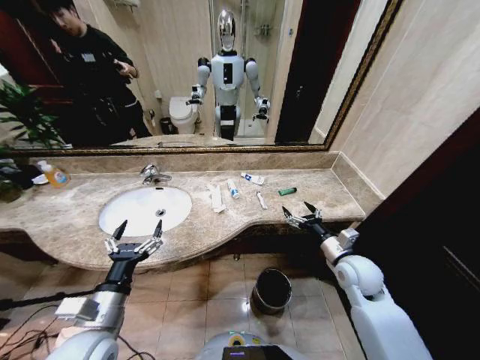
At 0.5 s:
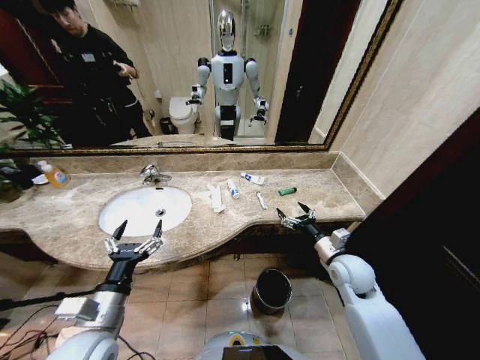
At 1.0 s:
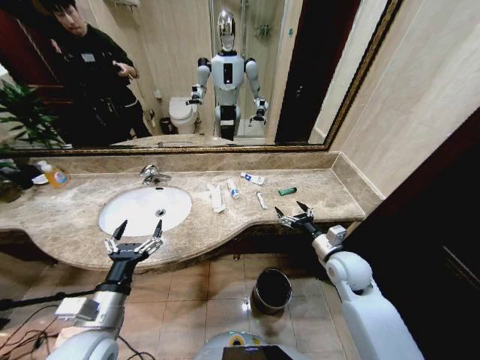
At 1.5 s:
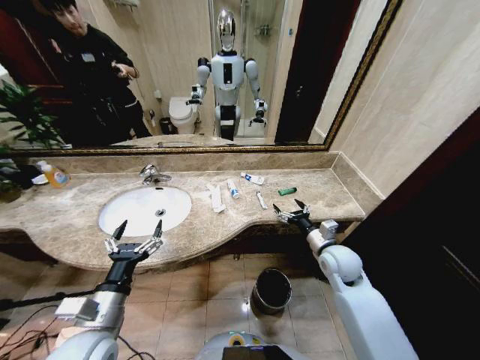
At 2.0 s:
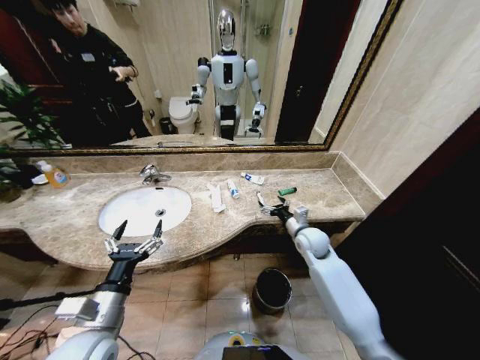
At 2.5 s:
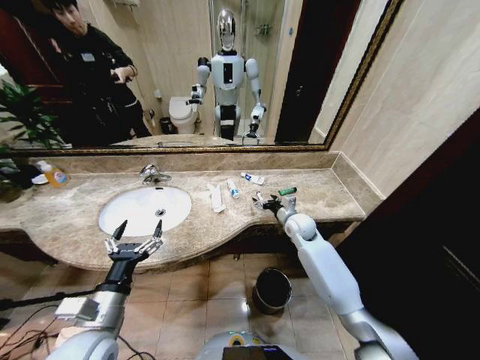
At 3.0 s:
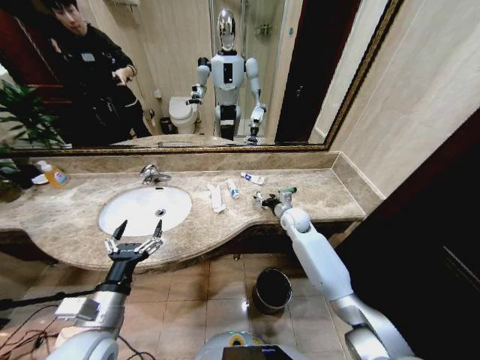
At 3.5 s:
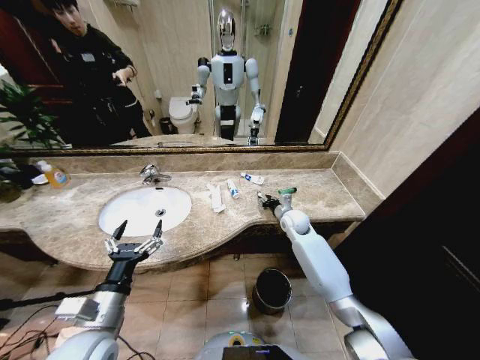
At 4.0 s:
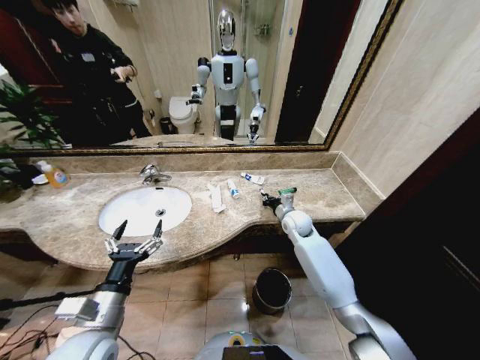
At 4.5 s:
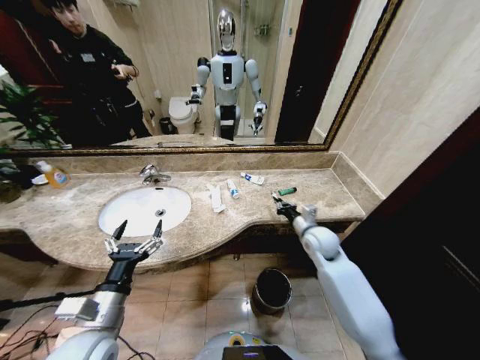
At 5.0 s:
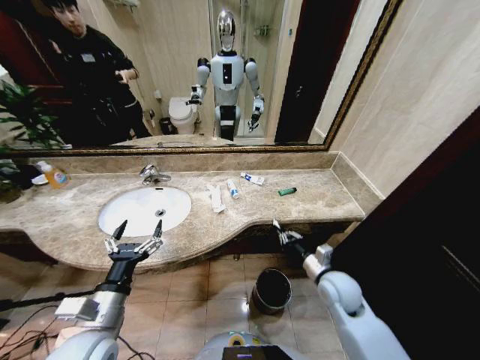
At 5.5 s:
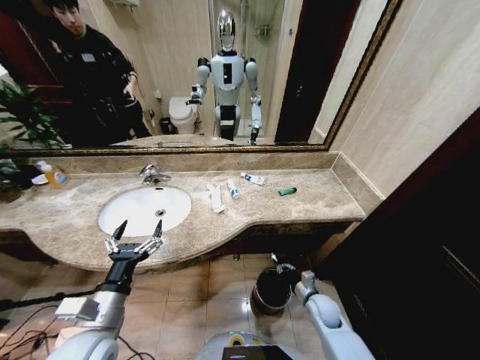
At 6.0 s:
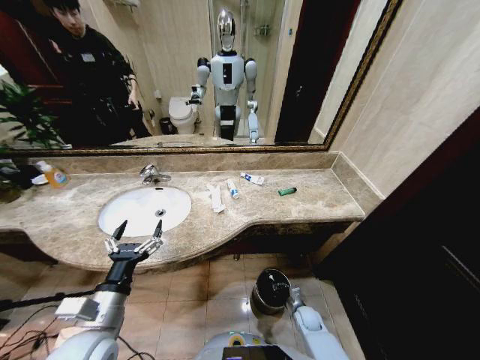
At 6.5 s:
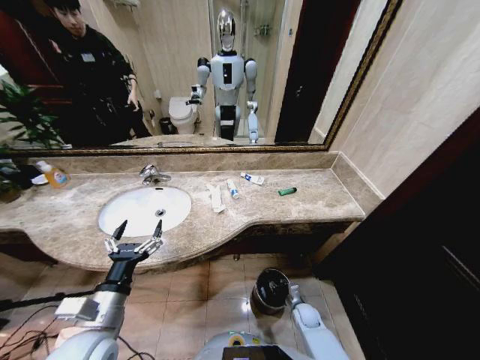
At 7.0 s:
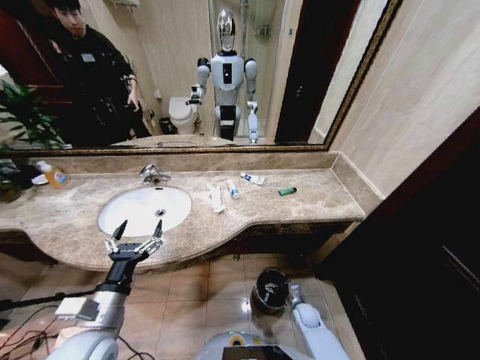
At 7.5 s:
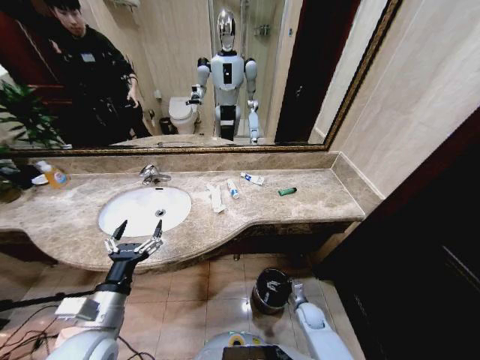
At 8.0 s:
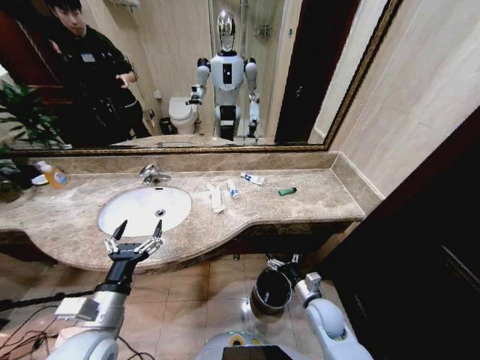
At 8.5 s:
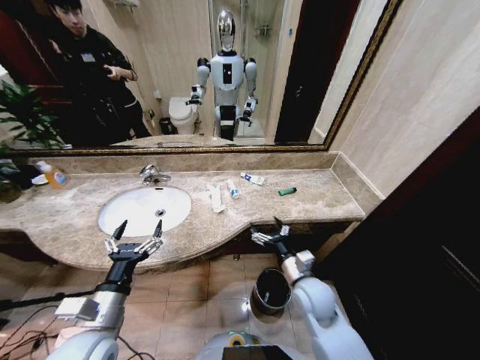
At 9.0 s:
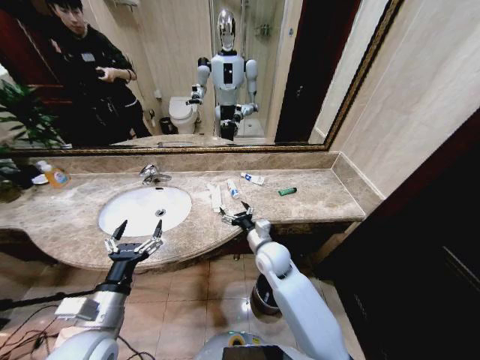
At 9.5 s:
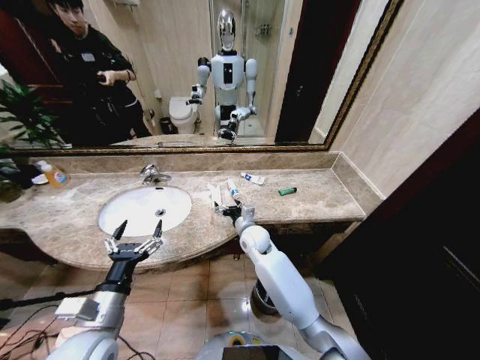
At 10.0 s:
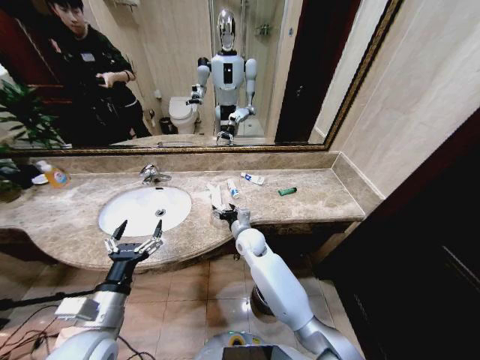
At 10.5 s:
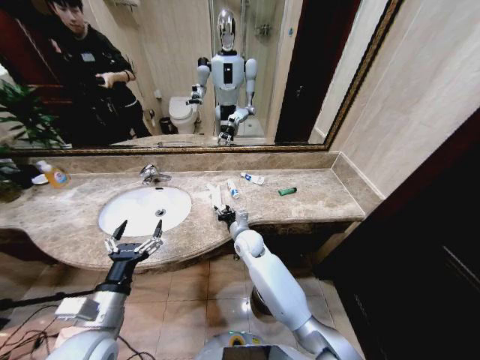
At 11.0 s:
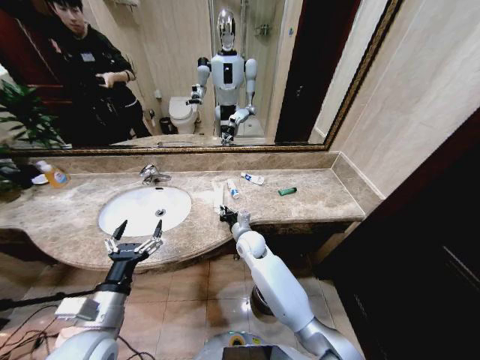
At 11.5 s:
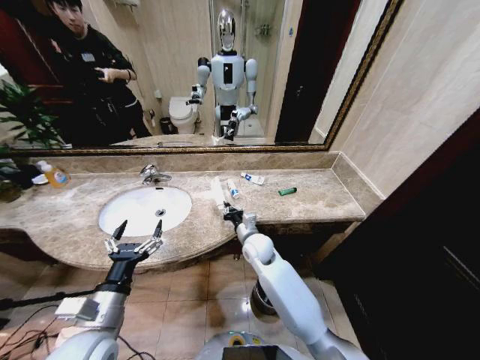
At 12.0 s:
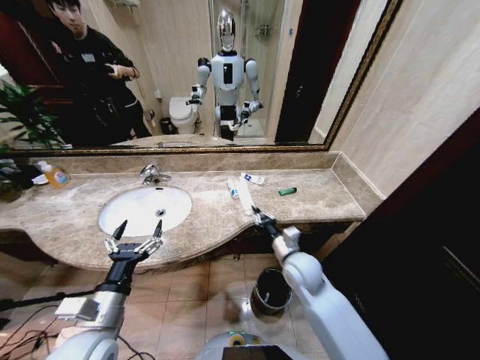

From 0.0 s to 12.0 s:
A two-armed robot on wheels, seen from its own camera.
Task of the whole recording: Pick up the trash from the sink and place it in the trash bin.
From 2.0 s to 4.0 s: The right gripper is displaced forward by roughly 5 cm, and closes up.
From 4.0 s to 6.0 s: The right gripper is displaced downward and backward by approximately 40 cm.
From 6.0 s to 8.0 s: The right gripper heads upward, covering roughly 20 cm, and opens.
From 8.0 s to 10.0 s: The right gripper travels to the left, forward and upward by some 30 cm.
From 10.0 s to 12.0 s: The right gripper moves to the right and backward, about 15 cm, and closes its fingers.

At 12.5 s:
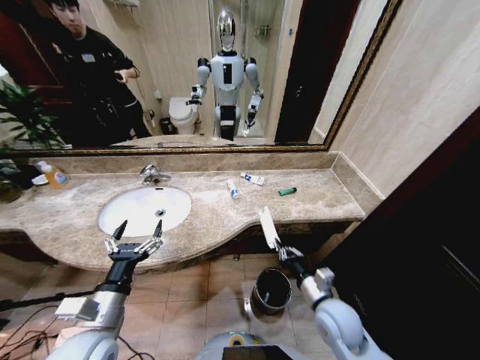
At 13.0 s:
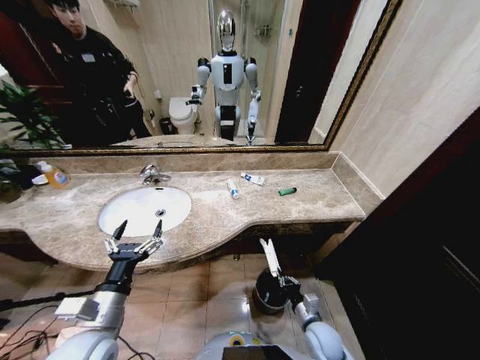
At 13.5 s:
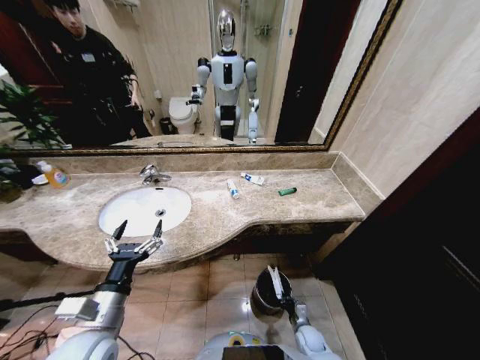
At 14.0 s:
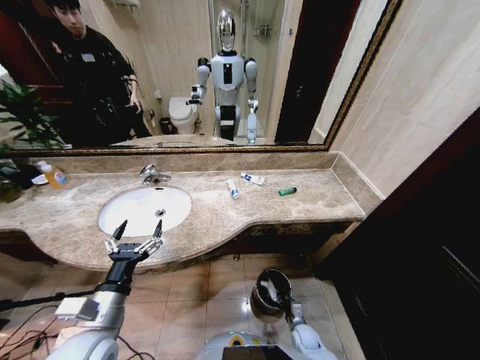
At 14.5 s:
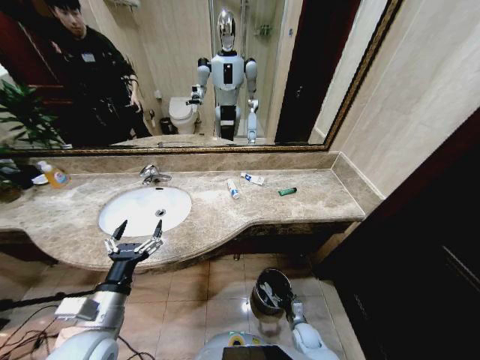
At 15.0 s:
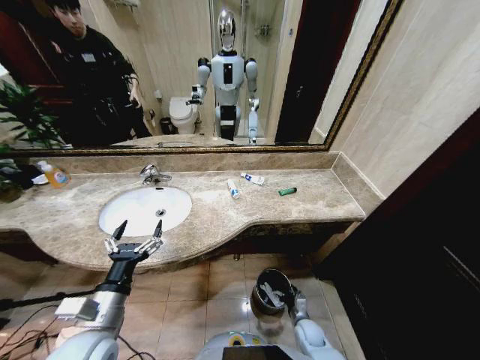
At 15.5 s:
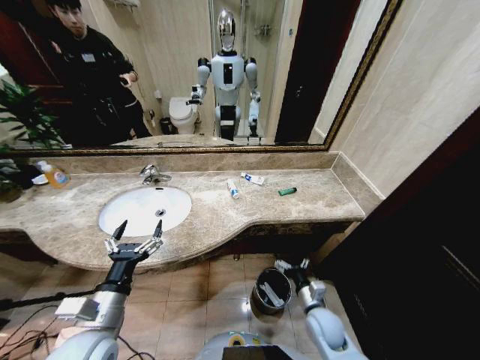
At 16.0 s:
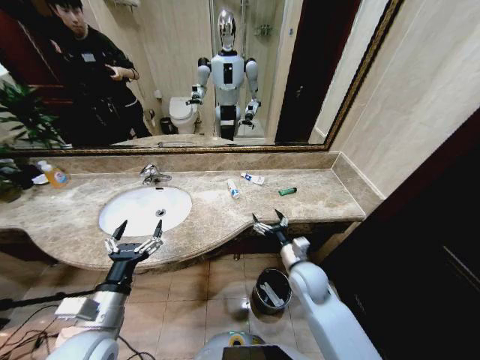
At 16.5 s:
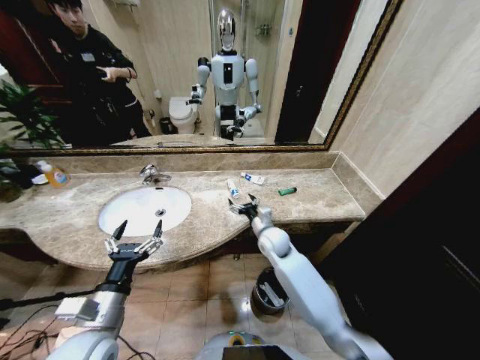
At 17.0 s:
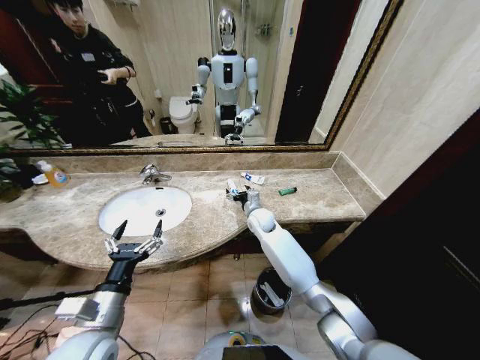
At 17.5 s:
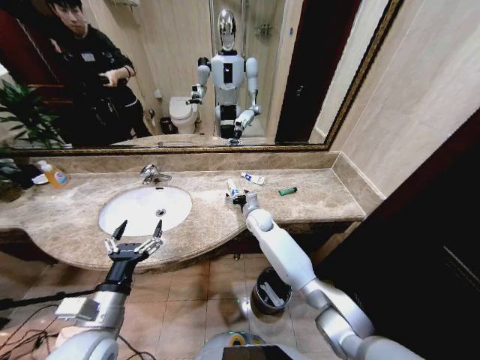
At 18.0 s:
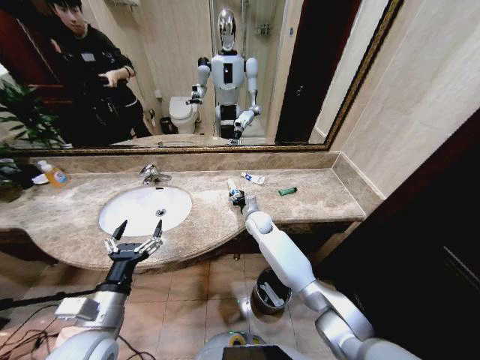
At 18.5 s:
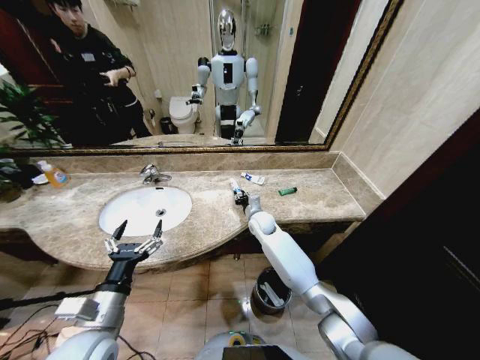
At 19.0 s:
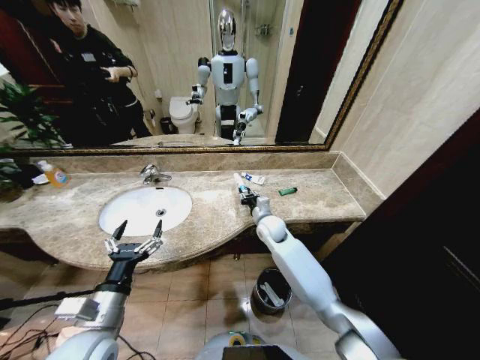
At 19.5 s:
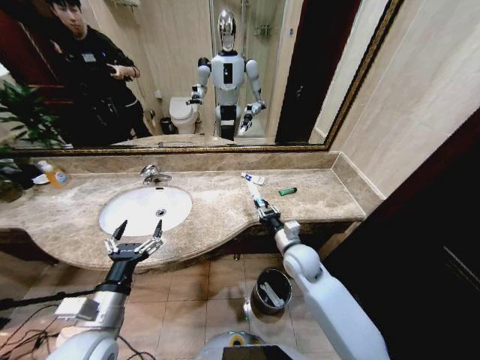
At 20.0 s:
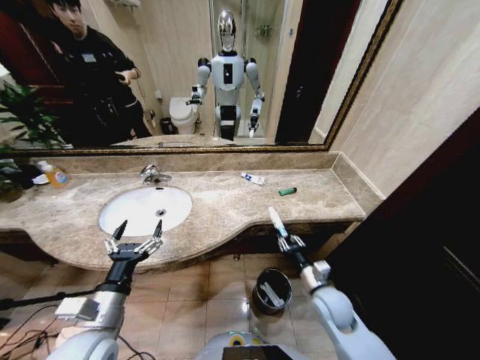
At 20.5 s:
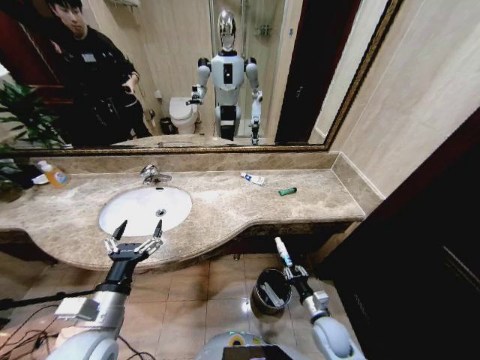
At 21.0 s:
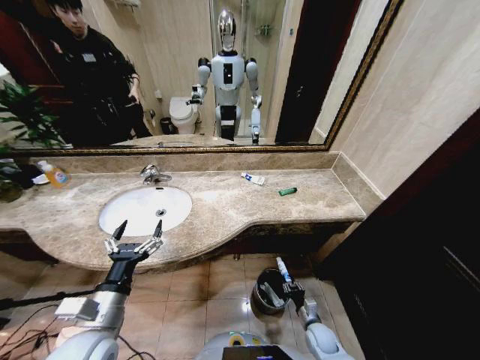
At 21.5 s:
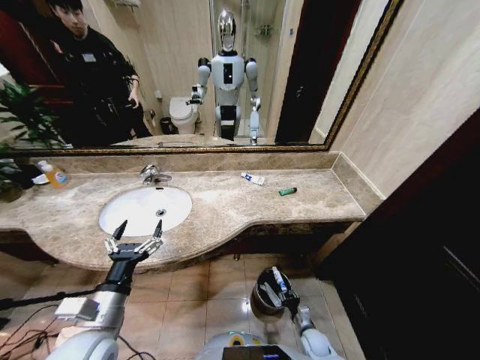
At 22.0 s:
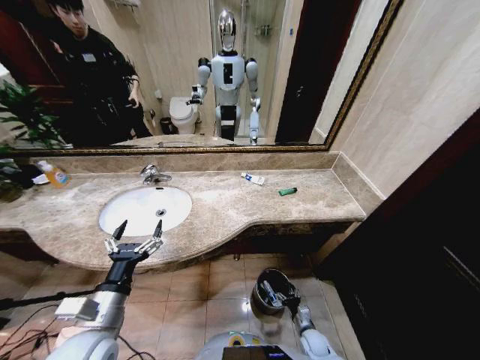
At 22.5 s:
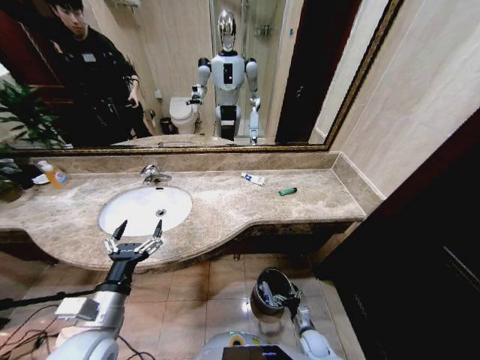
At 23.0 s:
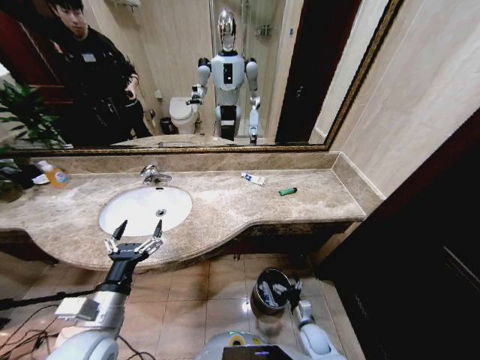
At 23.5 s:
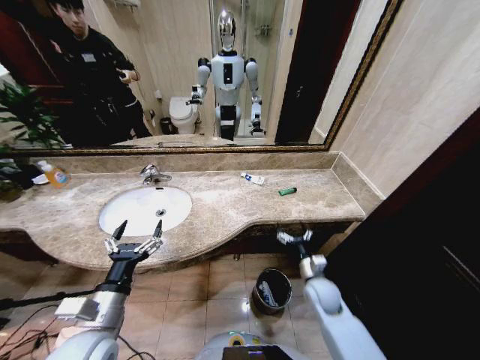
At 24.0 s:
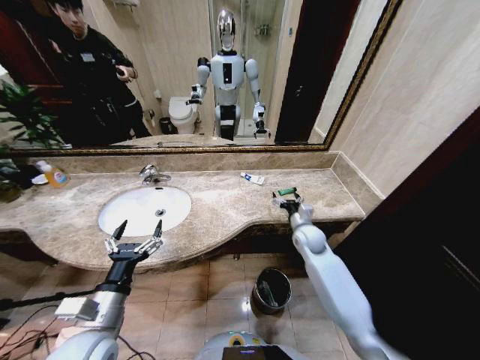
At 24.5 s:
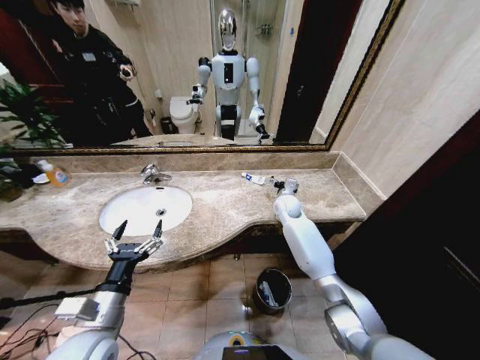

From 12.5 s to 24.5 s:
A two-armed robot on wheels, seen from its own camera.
Task of the whole recording: Pick up the trash from the sink and place it in the trash bin.
From 12.5 s to 14.5 s: The right gripper heads downward, covering some 30 cm, and opens up.
From 14.5 s to 16.5 s: The right gripper travels upward, forward and to the left by roughly 40 cm.
From 16.5 s to 18.5 s: The right gripper is displaced forward by some 10 cm, and closes.
From 18.5 s to 20.5 s: The right gripper heads backward, to the right and downward, covering approximately 40 cm.
From 20.5 s to 22.5 s: The right gripper is displaced downward by some 15 cm, and opens its fingers.
From 22.5 s to 24.5 s: The right gripper is displaced forward and upward by roughly 50 cm.

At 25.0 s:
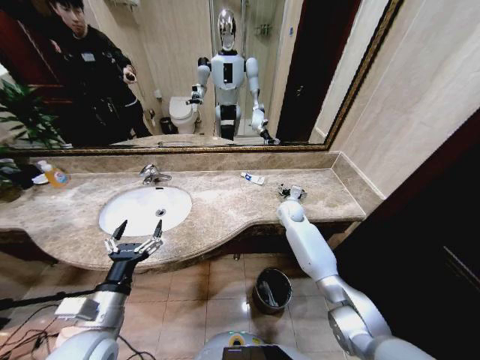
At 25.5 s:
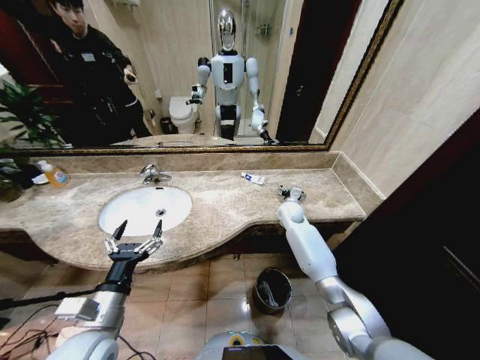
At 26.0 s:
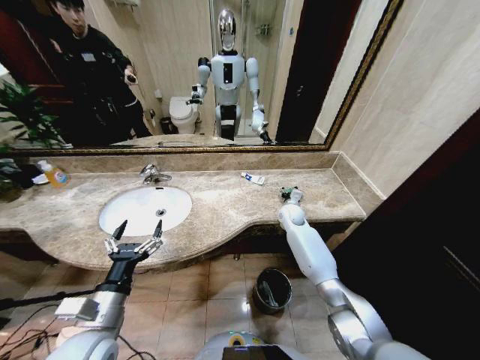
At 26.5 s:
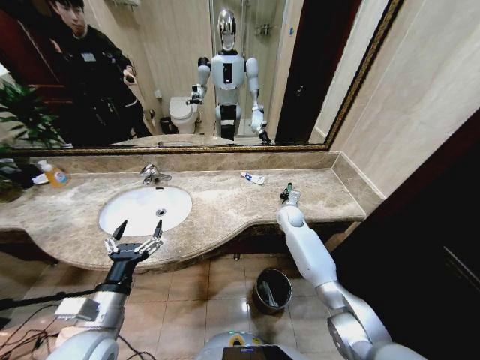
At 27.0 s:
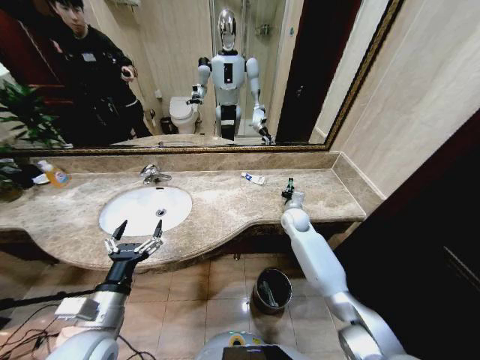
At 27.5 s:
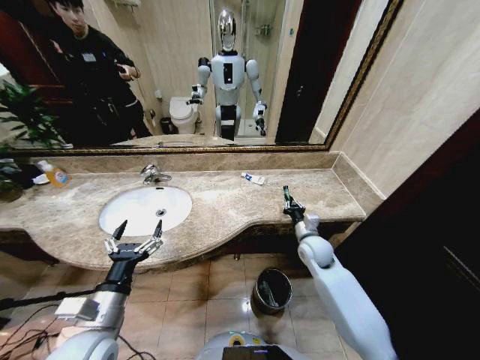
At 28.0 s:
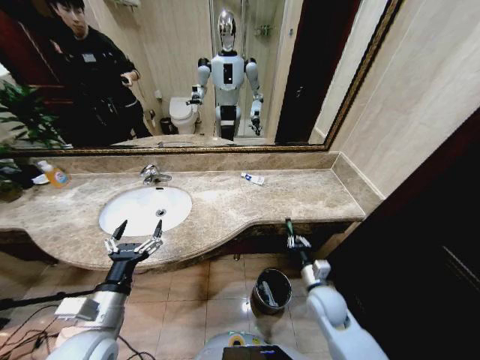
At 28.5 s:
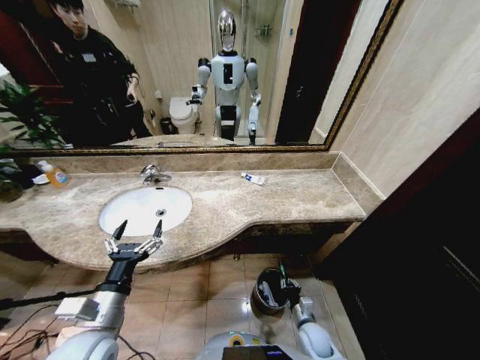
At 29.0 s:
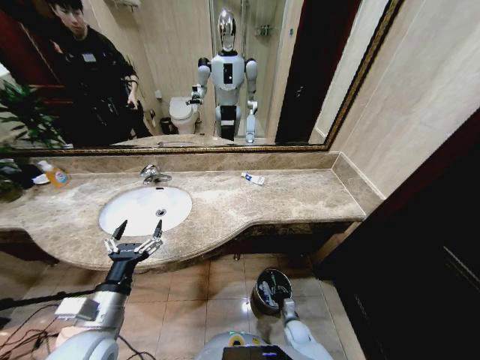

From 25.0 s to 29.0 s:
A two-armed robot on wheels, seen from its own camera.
Task of the whole recording: Pick up the trash from the sink and place it in the trash bin.
From 25.0 s to 27.0 s: The right gripper closes its fingers.
From 27.0 s to 29.0 s: The right gripper travels downward and backward by some 40 cm.
